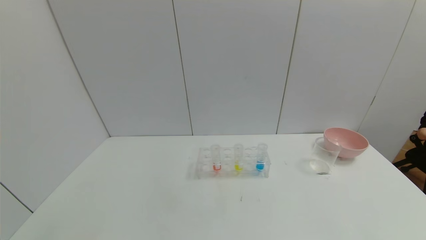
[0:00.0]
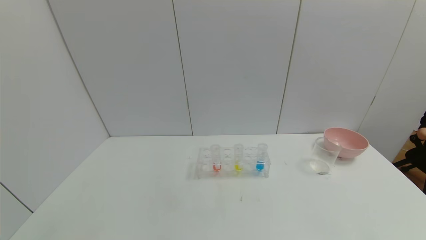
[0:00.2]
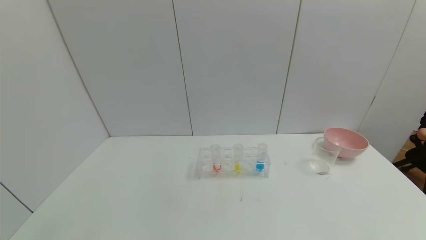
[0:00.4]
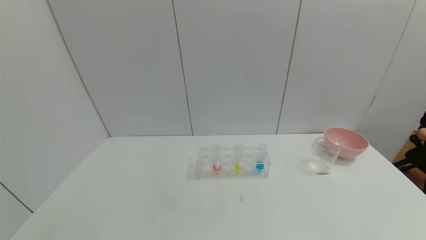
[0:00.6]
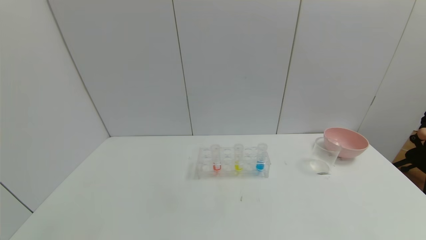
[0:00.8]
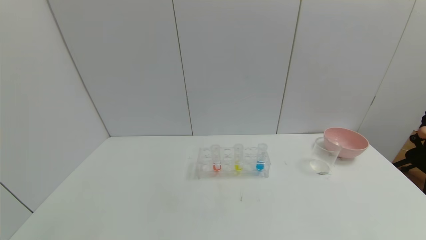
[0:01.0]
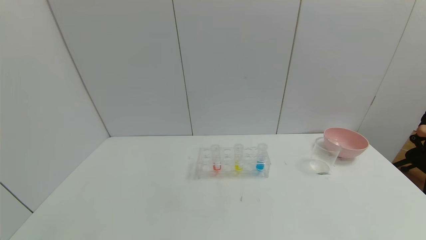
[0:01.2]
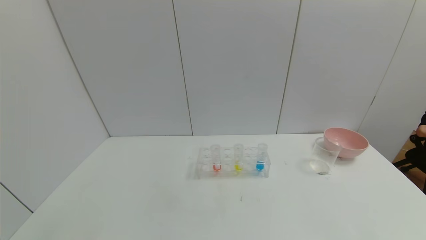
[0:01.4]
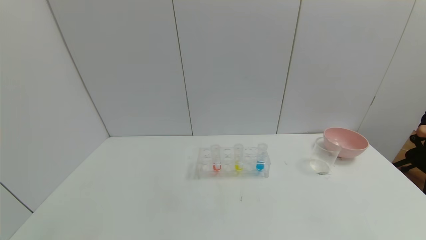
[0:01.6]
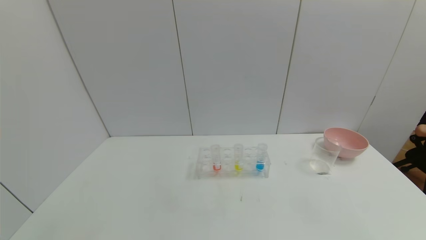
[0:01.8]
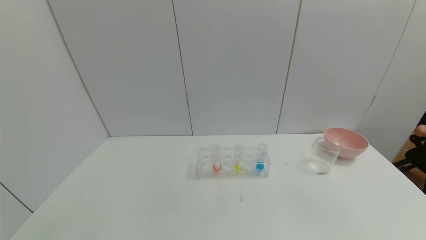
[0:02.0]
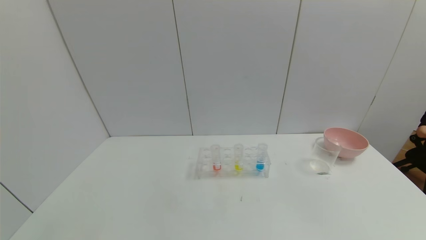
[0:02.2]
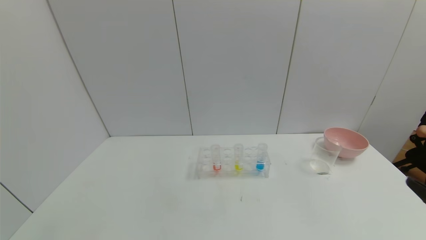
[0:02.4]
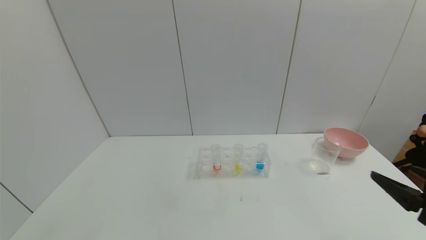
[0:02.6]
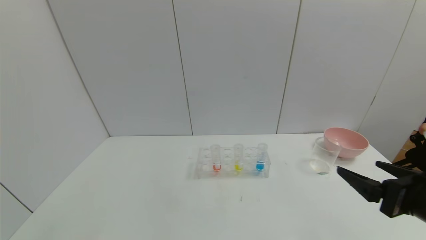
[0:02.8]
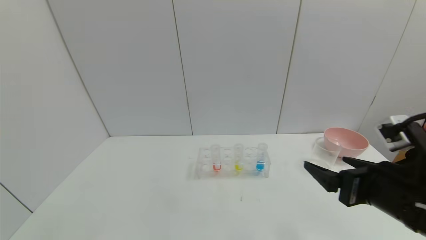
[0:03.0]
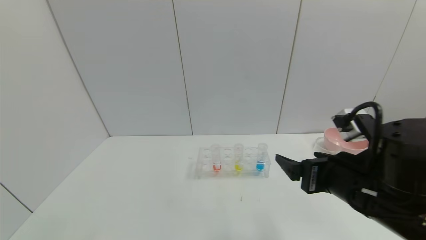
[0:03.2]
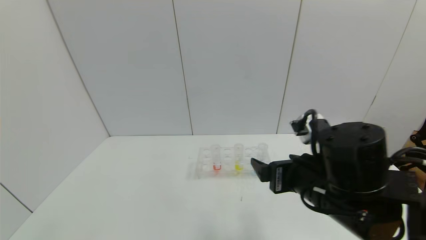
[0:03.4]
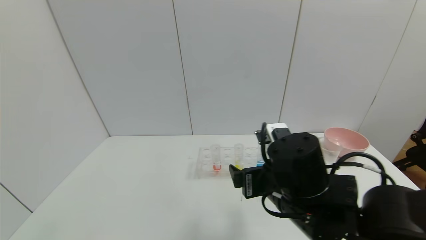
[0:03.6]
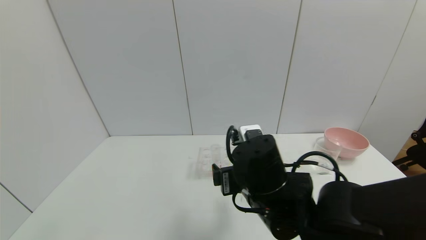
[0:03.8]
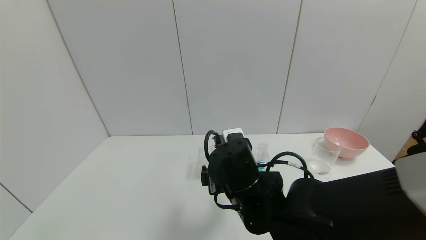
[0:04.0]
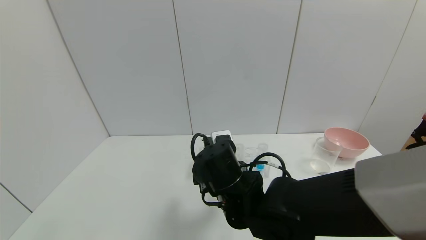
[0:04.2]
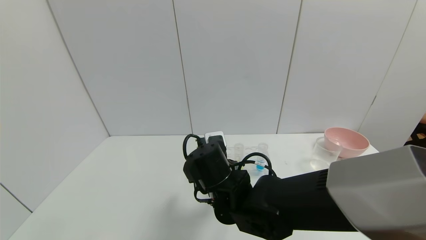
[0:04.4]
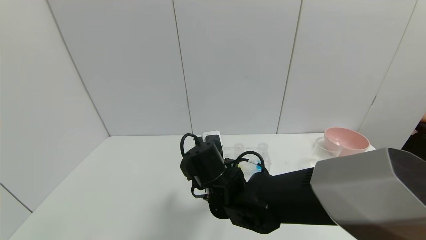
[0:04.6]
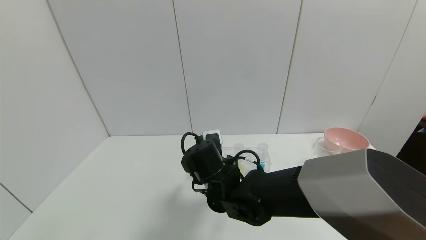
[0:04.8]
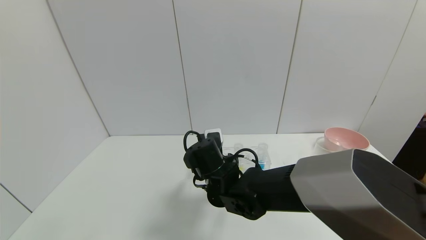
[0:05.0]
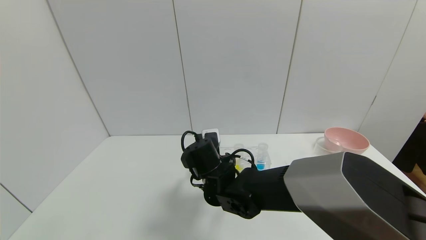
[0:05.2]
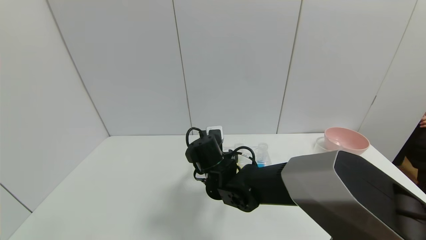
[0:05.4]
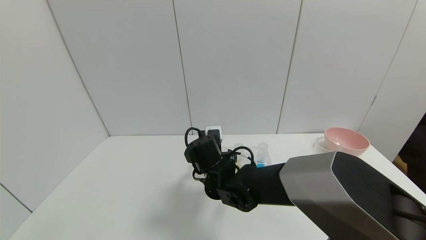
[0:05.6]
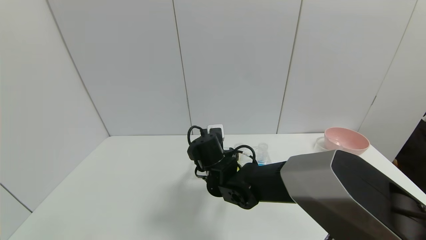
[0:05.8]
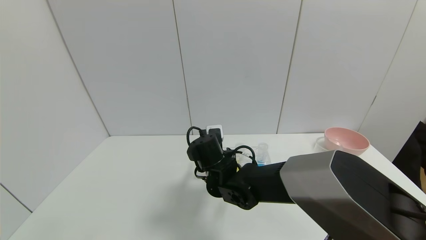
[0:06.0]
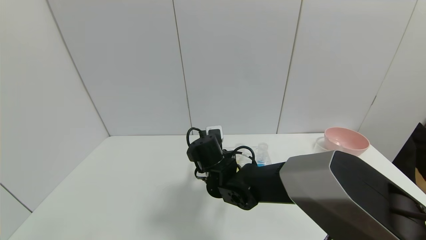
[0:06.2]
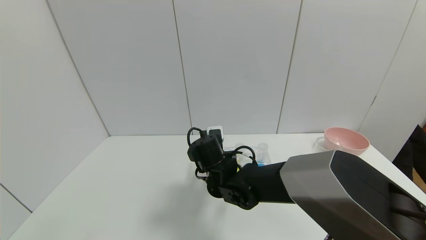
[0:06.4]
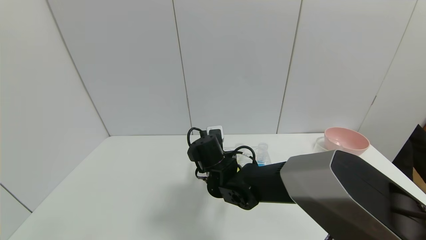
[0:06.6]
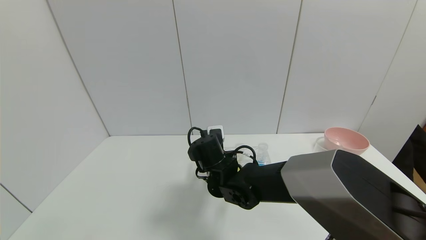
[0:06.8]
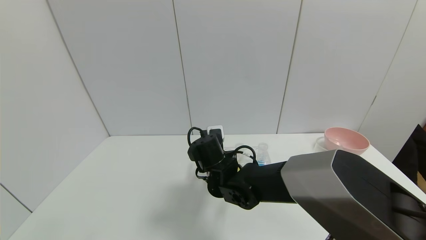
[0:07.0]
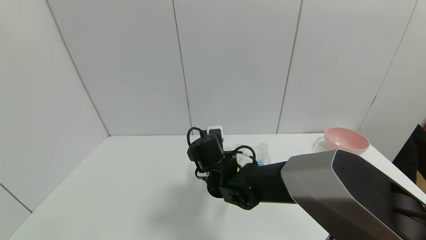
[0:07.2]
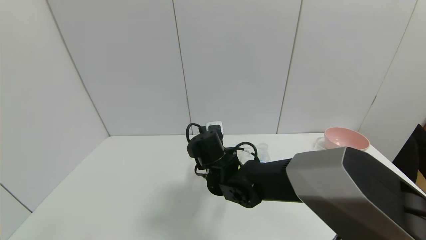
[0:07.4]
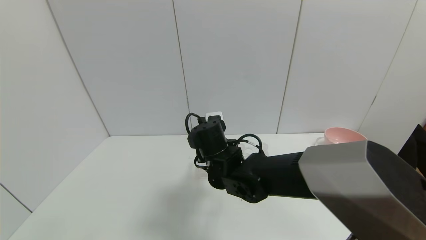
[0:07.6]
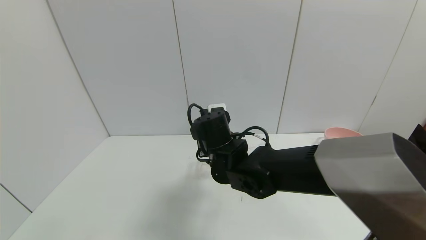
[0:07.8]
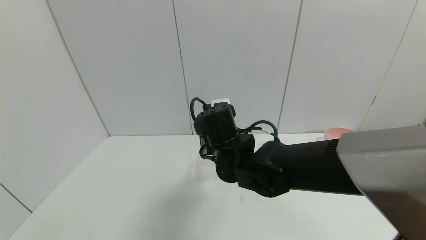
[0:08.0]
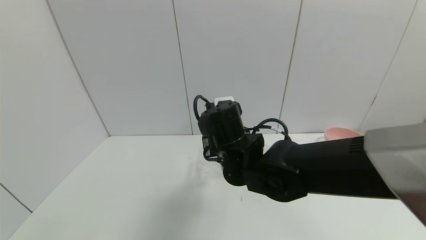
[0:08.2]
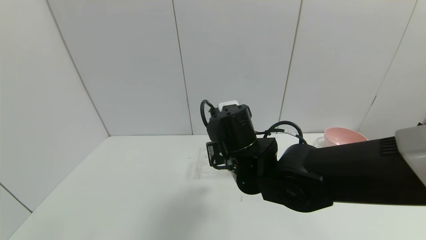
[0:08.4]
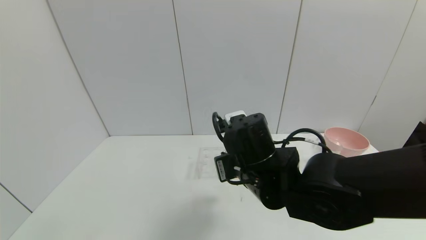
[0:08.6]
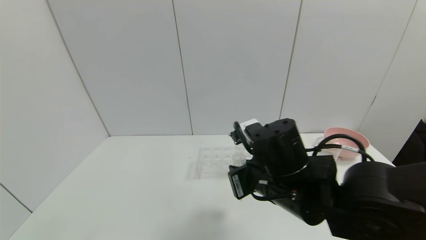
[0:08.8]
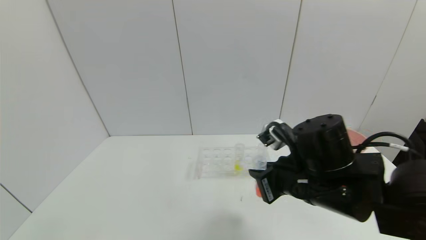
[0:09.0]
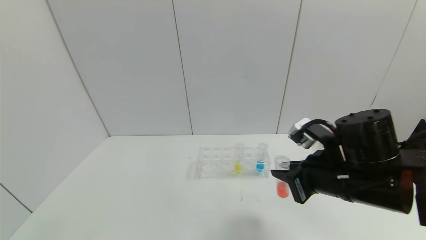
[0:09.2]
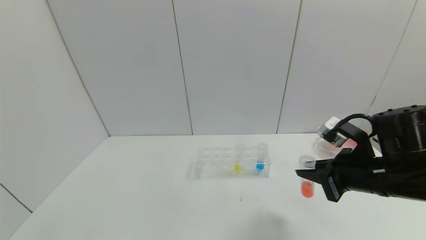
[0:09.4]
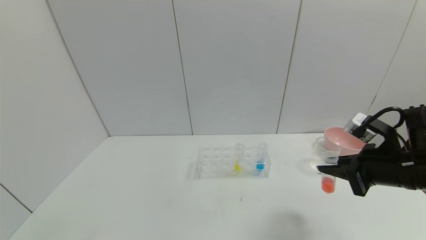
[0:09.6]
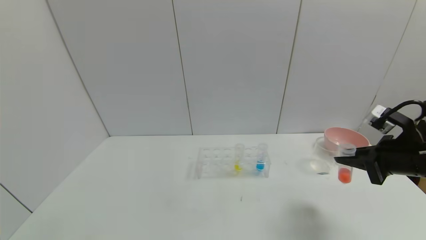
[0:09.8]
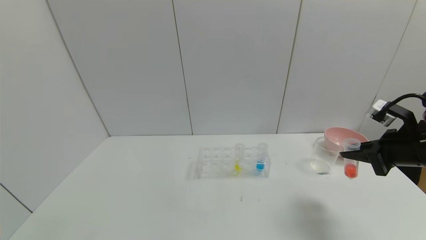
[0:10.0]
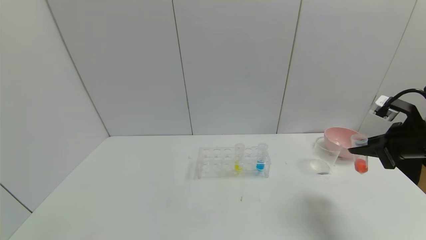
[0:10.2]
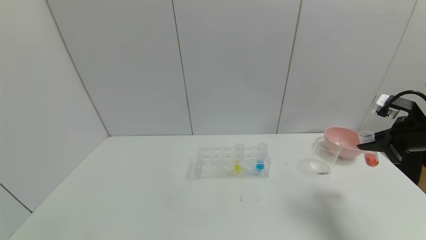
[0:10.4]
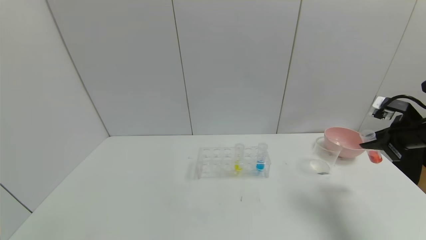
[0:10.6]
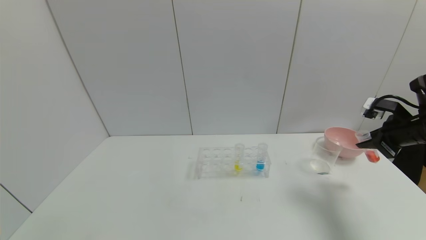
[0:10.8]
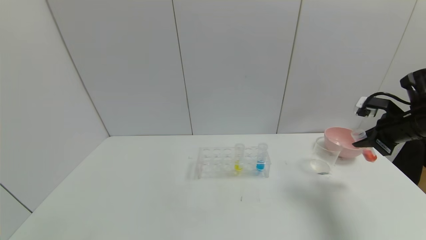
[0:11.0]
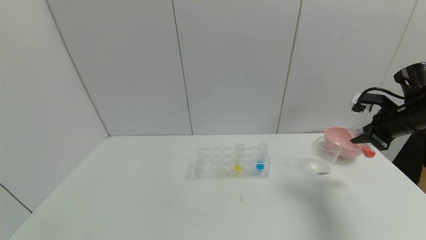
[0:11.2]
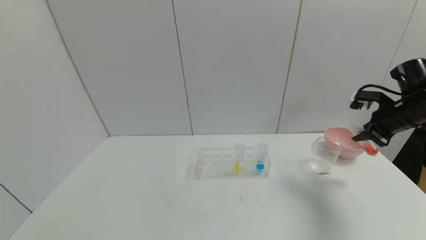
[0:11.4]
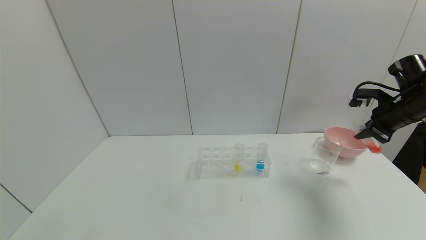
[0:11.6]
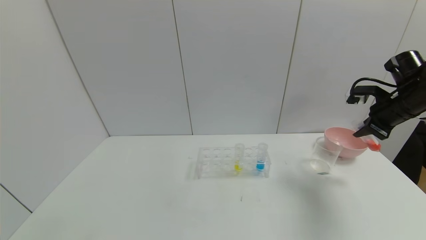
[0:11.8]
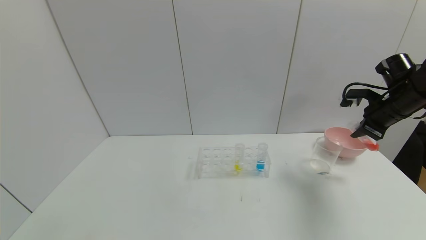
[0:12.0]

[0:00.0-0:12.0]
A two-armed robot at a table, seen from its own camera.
Task of the whole recording: pick up the test tube with yellow pigment and the test tube with red pigment by grippers and pour them into the beaker.
Step, 0:00.0 to 0:06.4: Grasp the red reagent with the right gripper.
0:01.6 to 0:03.0: The right gripper shifts about 25 cm forward, to the left and upward.
0:03.0 to 0:04.4: The right gripper moves to the left and forward, approximately 25 cm.
0:04.4 to 0:06.0: The right gripper is displaced forward by some 5 cm.
0:06.0 to 0:07.6: The right gripper closes up.
0:07.6 to 0:09.0: The right gripper shifts approximately 20 cm to the right and backward.
0:09.0 to 0:10.4: The right gripper is displaced to the right by some 25 cm.
0:10.4 to 0:12.0: The right gripper goes some 10 cm forward.

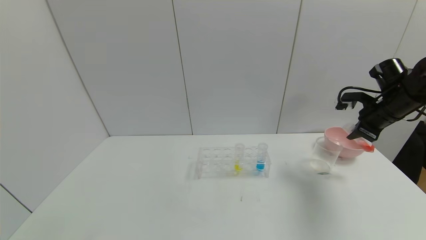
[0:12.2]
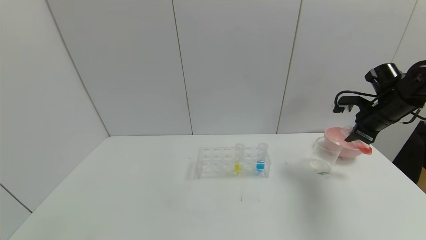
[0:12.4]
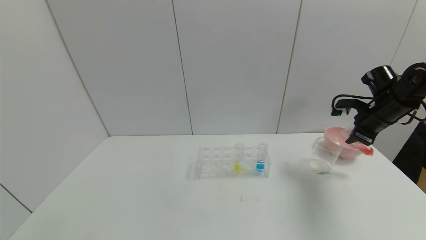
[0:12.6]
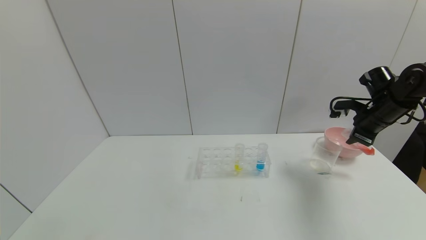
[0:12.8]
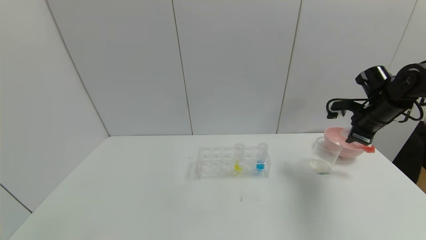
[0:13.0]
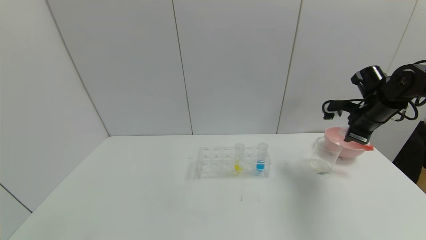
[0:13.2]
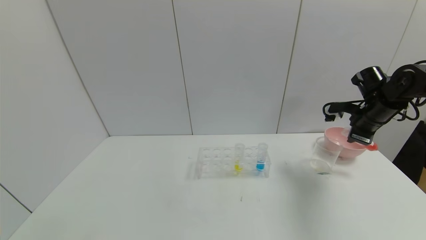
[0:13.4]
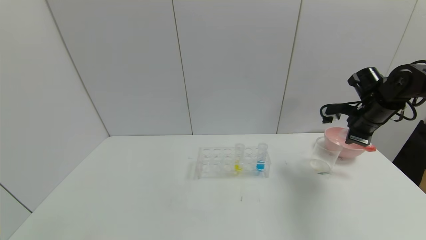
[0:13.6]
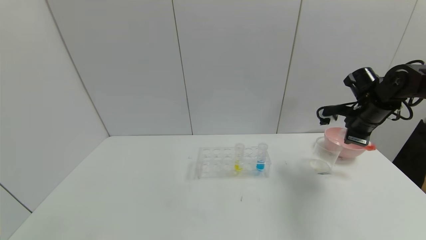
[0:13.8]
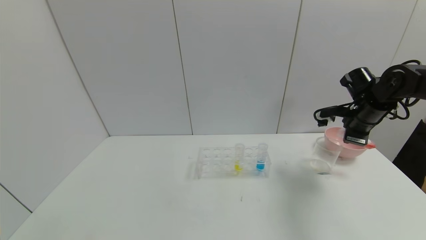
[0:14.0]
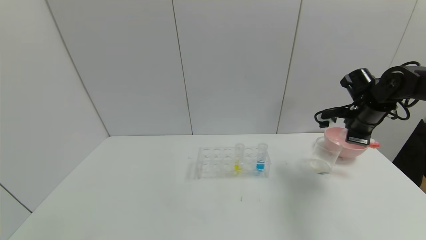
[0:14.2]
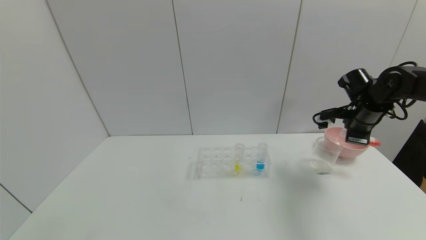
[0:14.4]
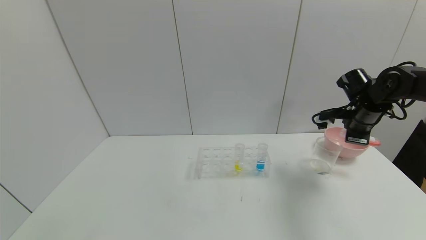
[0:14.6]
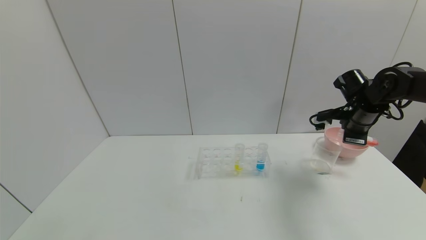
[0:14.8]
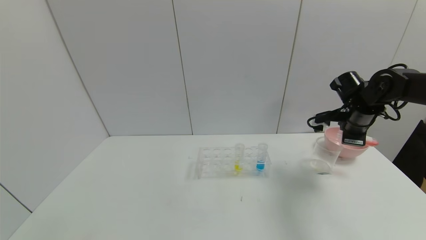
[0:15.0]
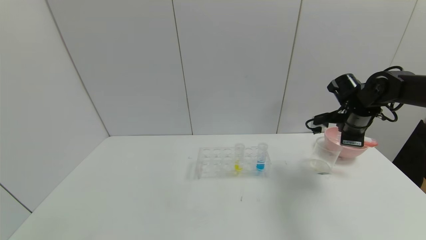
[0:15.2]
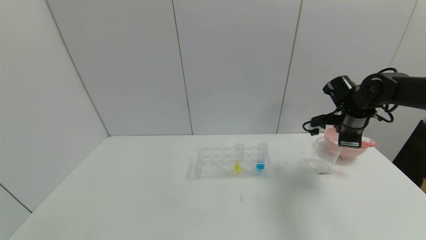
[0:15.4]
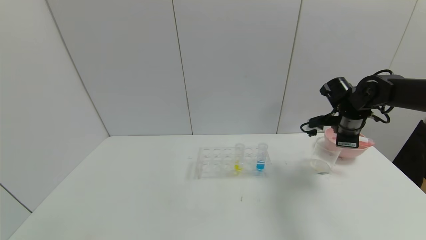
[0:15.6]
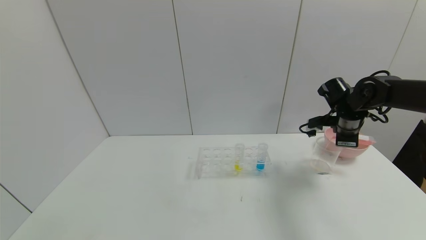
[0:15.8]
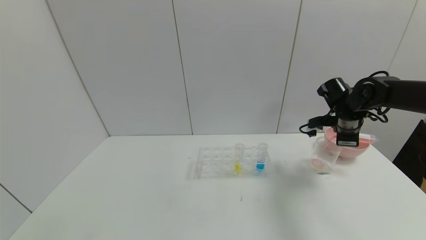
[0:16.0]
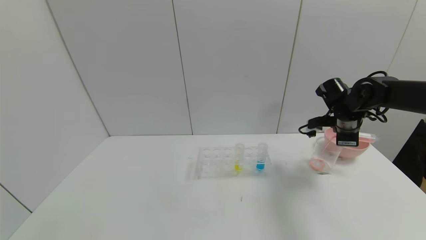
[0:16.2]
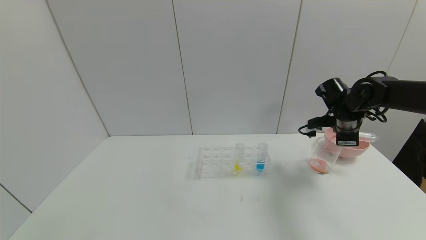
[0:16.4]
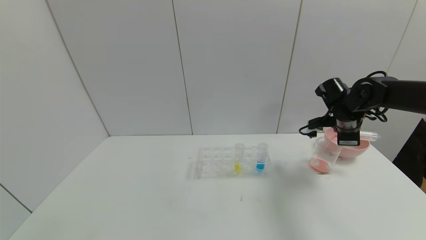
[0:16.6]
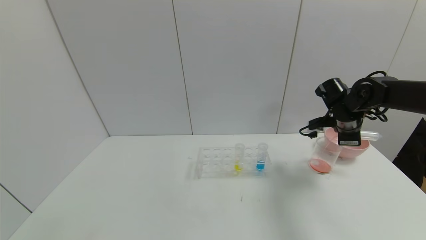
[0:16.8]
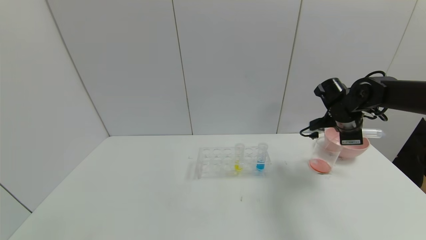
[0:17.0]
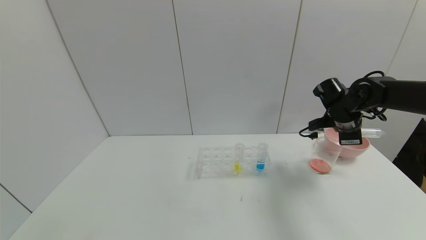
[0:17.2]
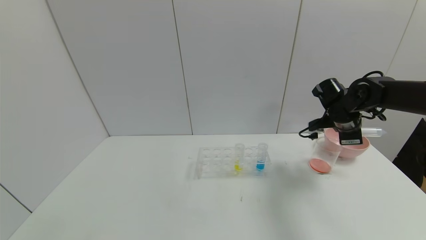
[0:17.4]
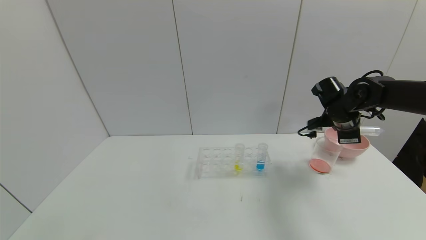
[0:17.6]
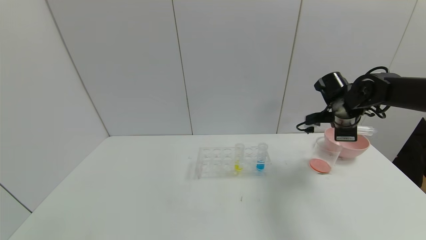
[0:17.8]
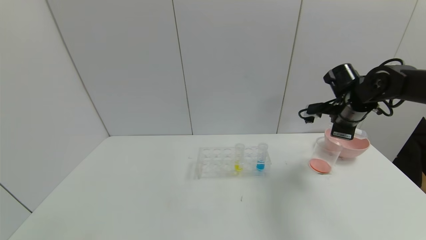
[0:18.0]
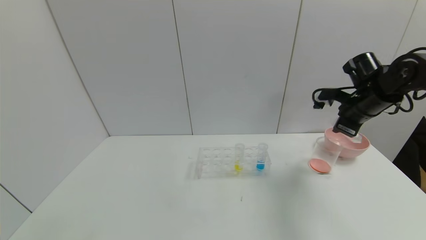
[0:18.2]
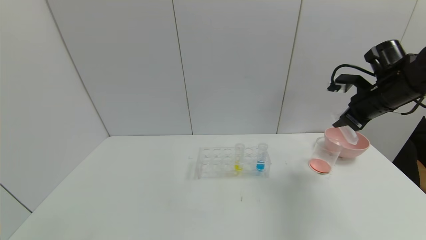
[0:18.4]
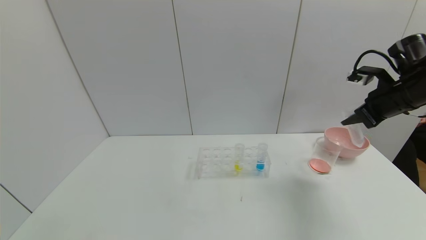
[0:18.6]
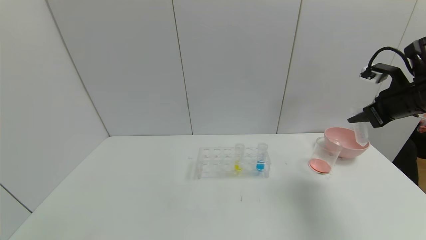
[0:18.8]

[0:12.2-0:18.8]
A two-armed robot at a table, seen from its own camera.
Task of the whole recording: pick up the test tube with yellow pigment and the test tube with red pigment by grippers and pour them into the beaker.
Step, 0:12.2 to 0:17.0: Pour the red reagent into the graduated cylinder with the right gripper.
0:12.2 to 0:13.8: There are only small adjustments of the grippers.
0:13.8 to 0:15.4: There are only small adjustments of the grippers.
0:15.4 to 0:17.2: The grippers move only a little.
0:17.2 to 0:18.8: The right gripper travels upward, backward and to the right by roughly 15 cm.
